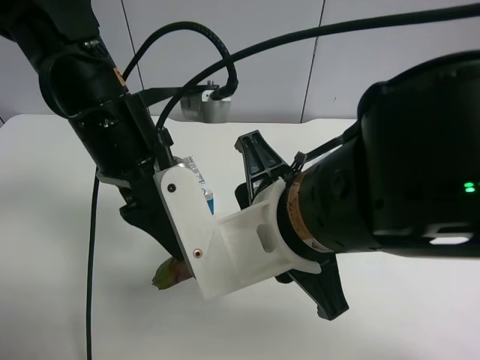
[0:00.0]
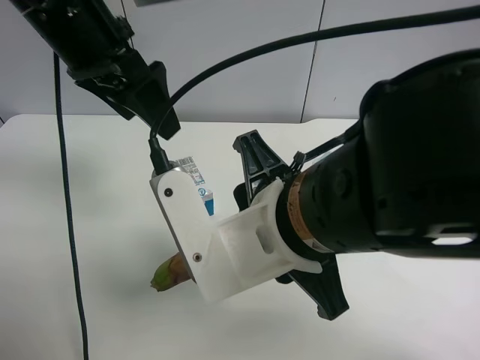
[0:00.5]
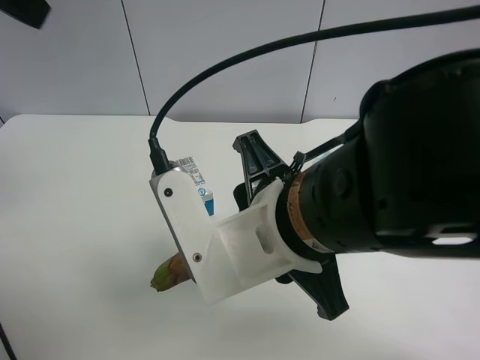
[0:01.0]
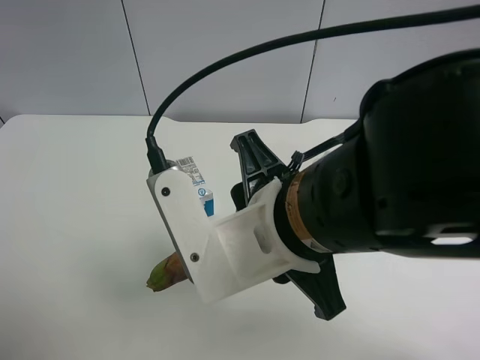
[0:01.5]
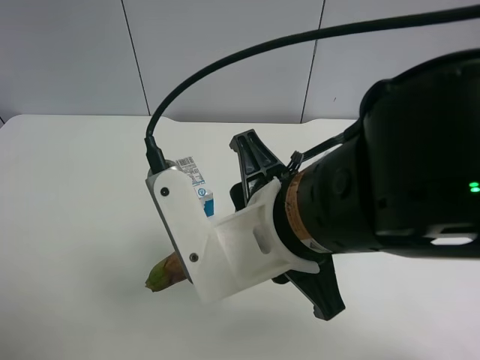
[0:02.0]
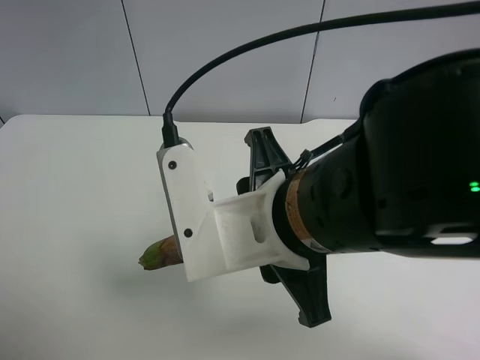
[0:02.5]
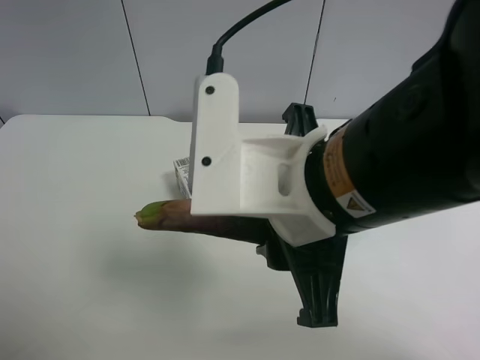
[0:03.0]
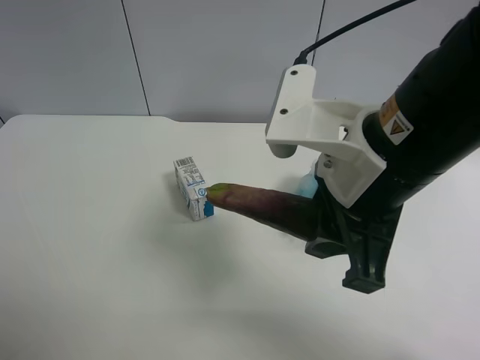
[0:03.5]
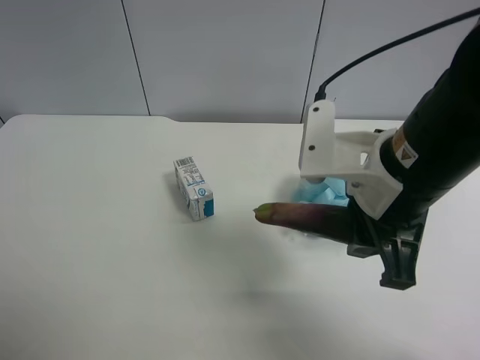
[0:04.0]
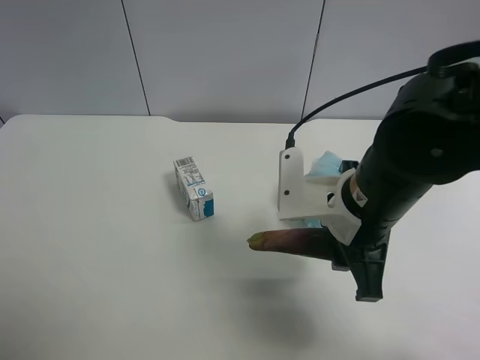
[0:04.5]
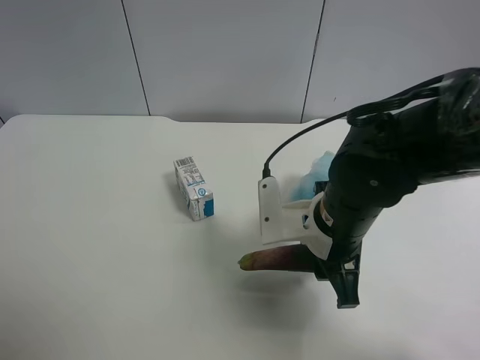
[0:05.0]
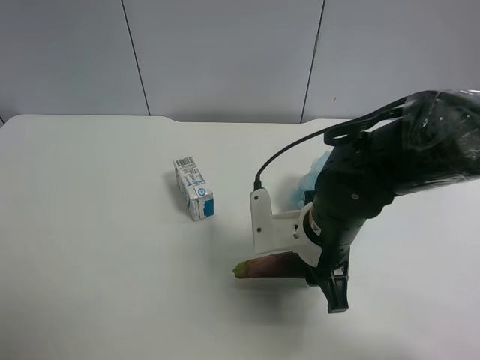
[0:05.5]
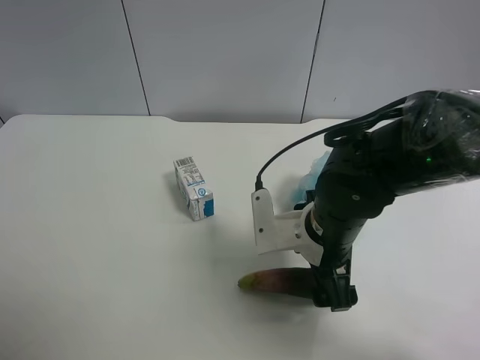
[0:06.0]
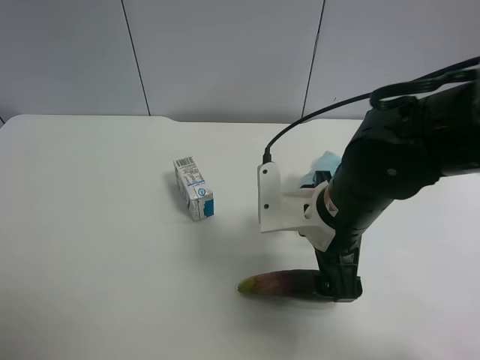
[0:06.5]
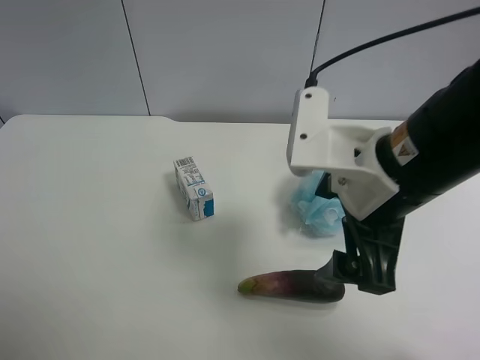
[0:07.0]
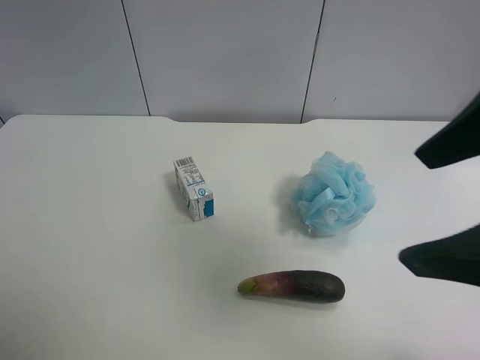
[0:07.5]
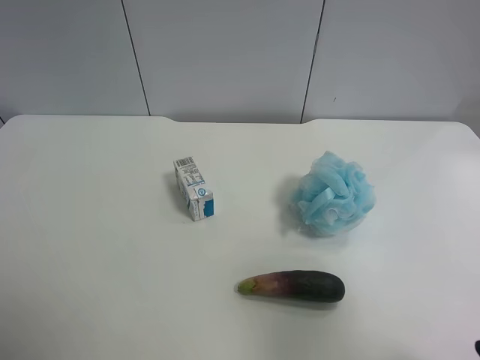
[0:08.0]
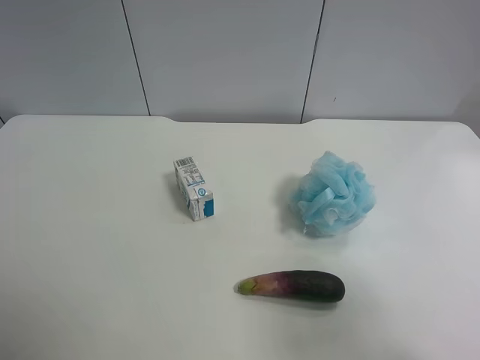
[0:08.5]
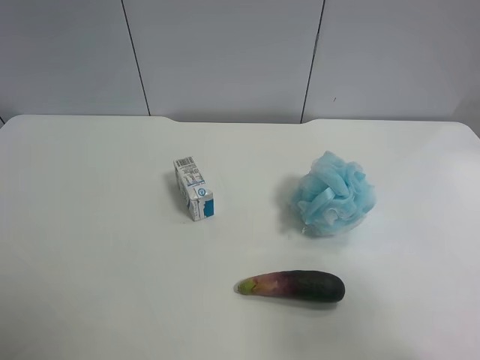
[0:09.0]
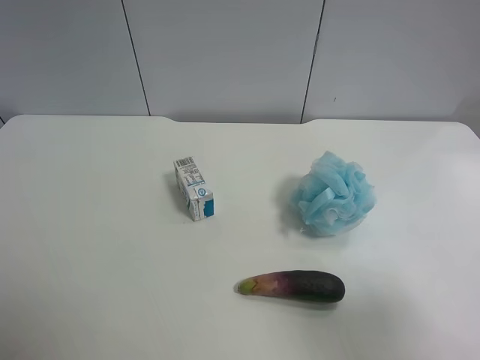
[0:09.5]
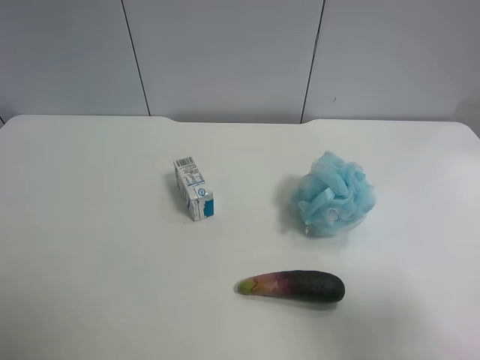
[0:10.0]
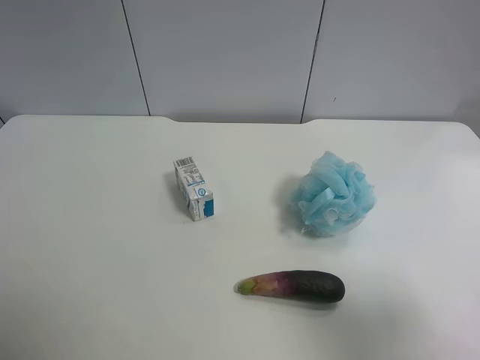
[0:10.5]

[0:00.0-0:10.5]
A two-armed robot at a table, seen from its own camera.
Task of the whole recording: use the left gripper to pick up the item and transfer it from the left gripper to the right gripper.
0:00.0 to 0:02.0: The left gripper is displaced backward and to the left by some 30 cm.
0:02.0 to 0:04.0: The right gripper is displaced to the right and forward by about 10 cm.
0:04.0 to 0:06.5: The right gripper shifts some 5 cm downward, and opens.
0:06.5 to 0:08.5: The right gripper heads backward, to the right and upward, covering approximately 30 cm.
